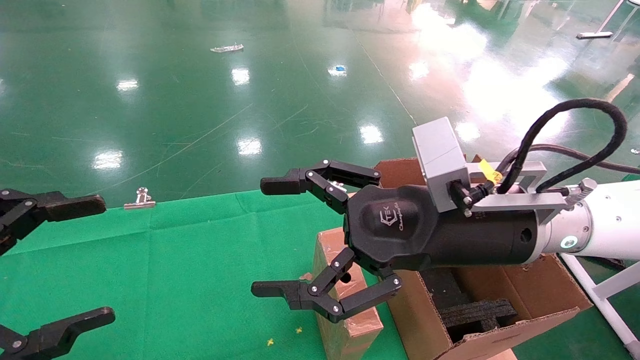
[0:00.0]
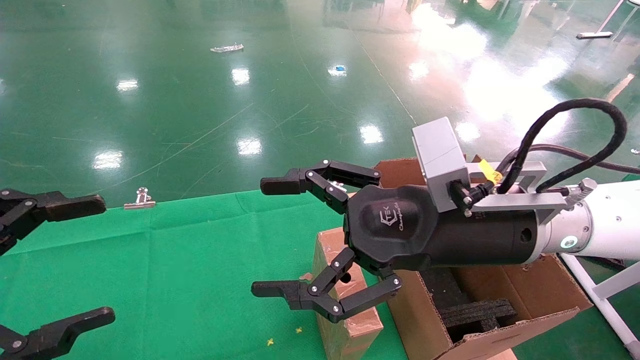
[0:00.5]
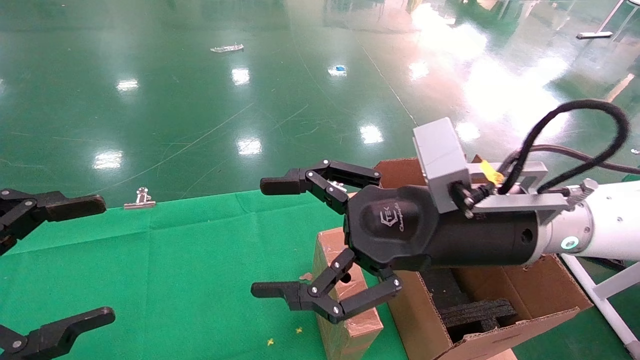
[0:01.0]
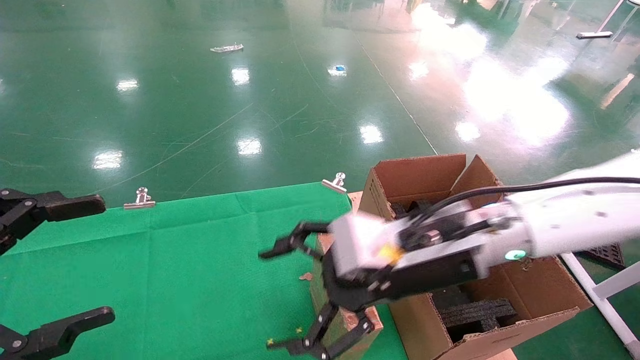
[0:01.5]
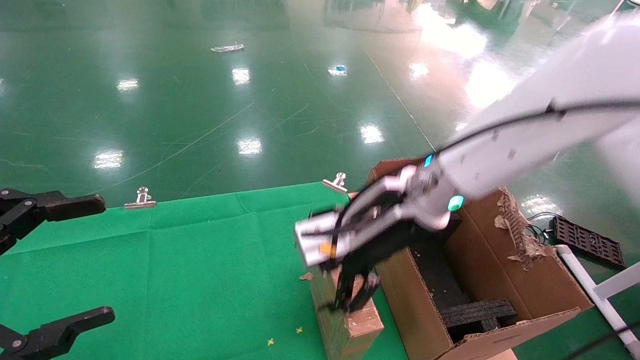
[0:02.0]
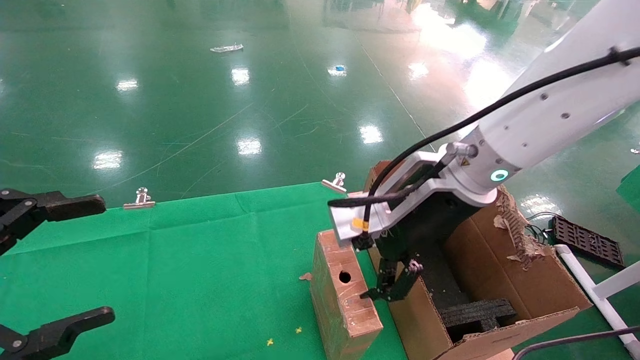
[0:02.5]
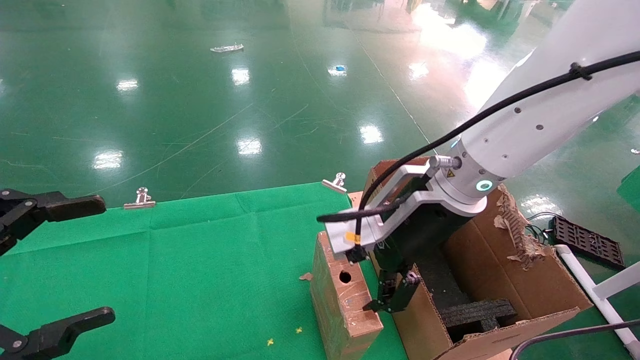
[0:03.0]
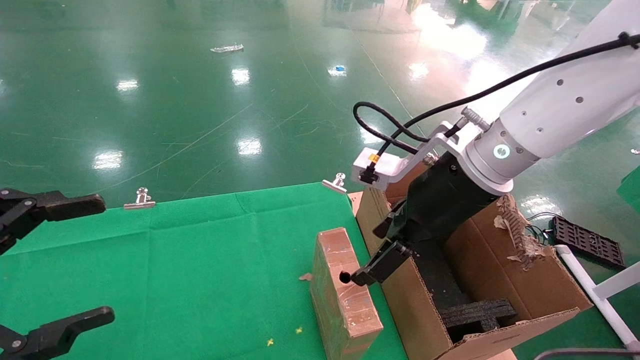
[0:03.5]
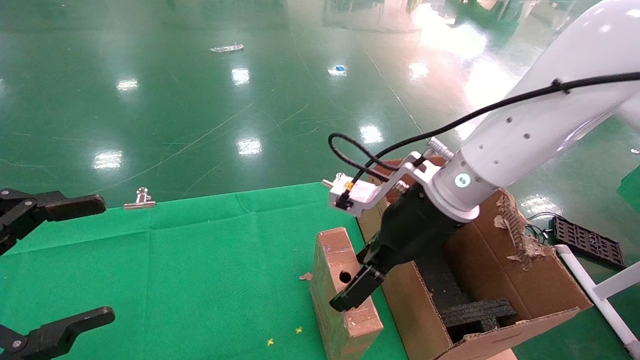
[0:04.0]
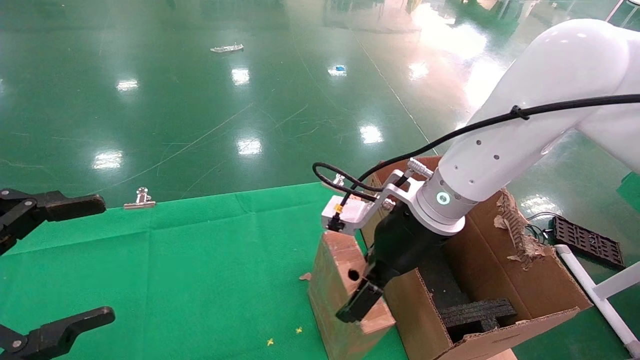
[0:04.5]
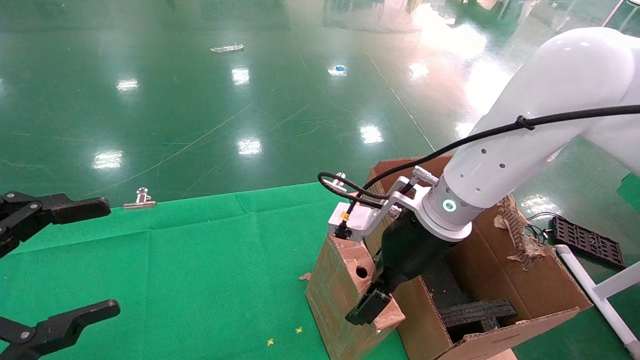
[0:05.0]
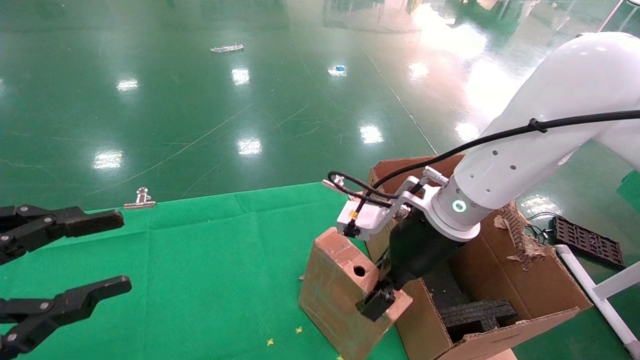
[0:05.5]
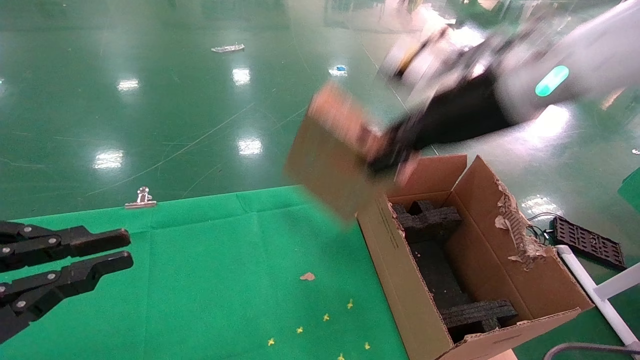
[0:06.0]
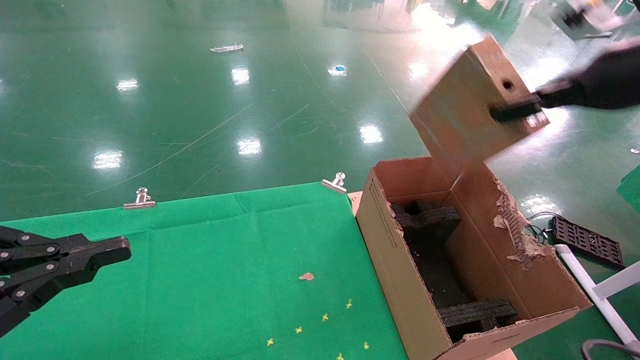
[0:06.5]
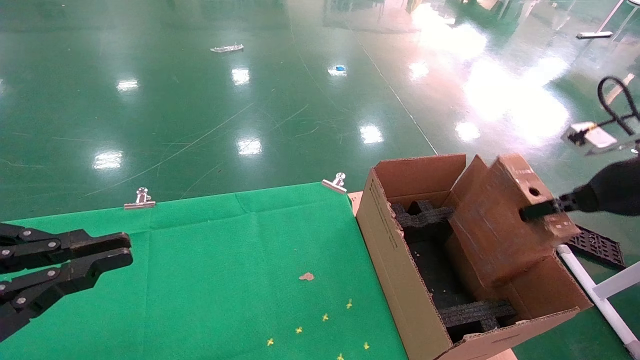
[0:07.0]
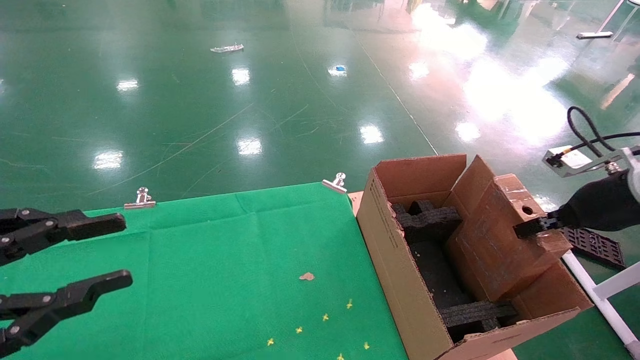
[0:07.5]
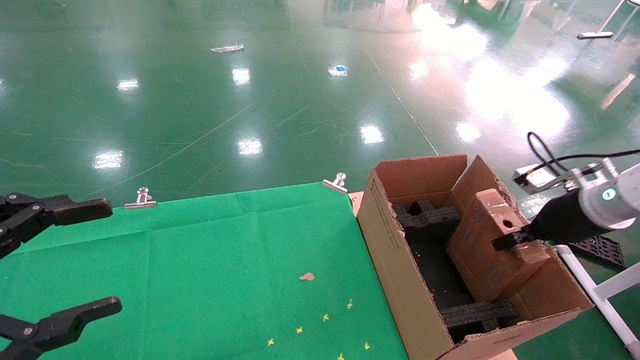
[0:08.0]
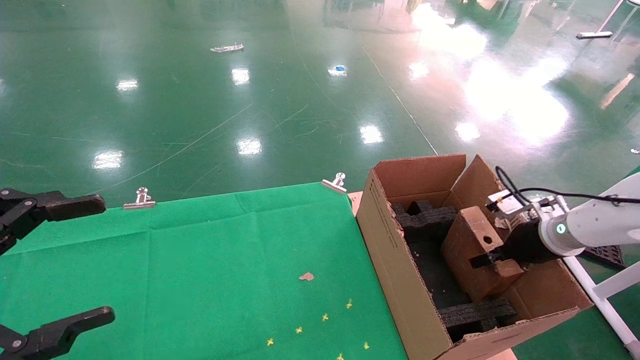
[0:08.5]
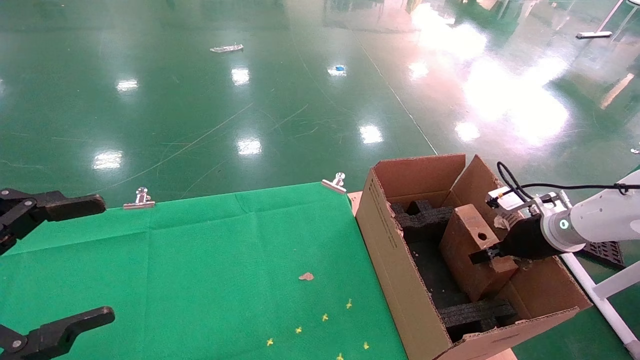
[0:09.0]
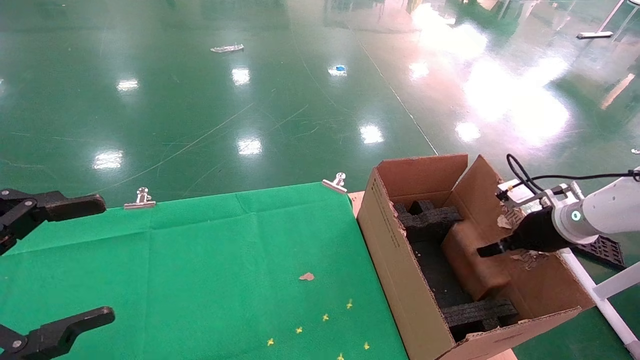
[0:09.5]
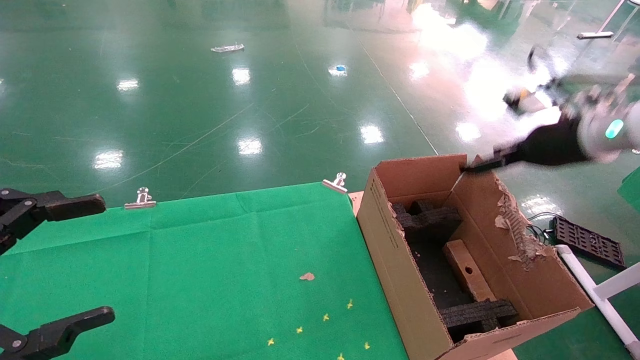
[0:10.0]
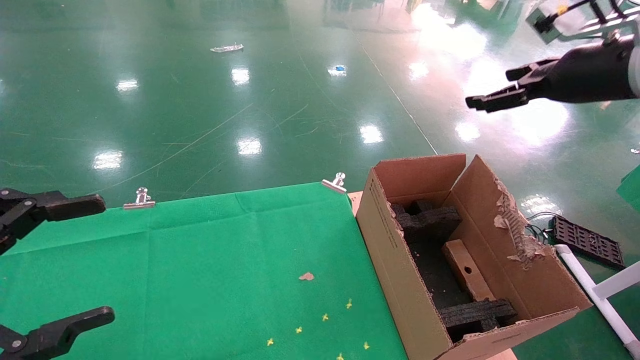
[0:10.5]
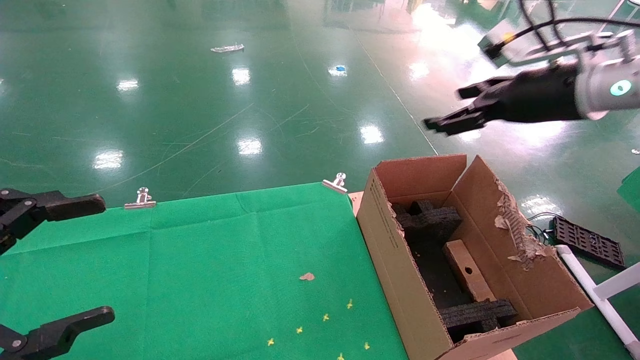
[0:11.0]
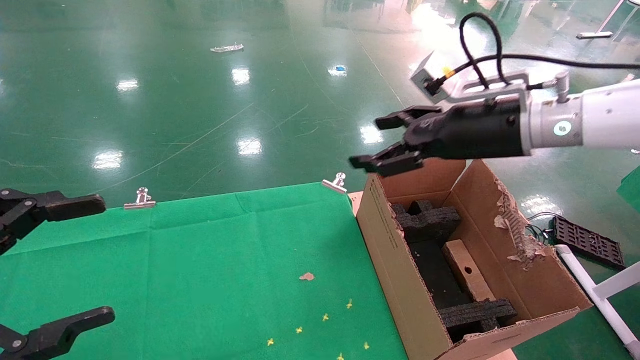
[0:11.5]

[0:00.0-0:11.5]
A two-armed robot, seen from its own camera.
Task of the whole recording: using a robotic arm to pick up a cardboard box and palace it the carton.
Step, 0:01.5 to 0:05.5: Pick up the mouse and the power cord paper box.
Step, 0:06.0 to 0:09.5: Place the mouse and the power cord paper box into the container.
0:00.0 to 0:02.0: The right gripper is displaced forward by about 5 cm.
0:04.0 to 0:06.0: The right gripper heads upward and to the right, covering roughly 15 cm, and closes its fingers. The left gripper closes.
0:06.0 to 0:07.5: The right gripper goes some 25 cm to the right and downward.
0:07.5 to 0:09.5: The left gripper opens up, while the right gripper goes roughly 10 cm downward and forward.
0:09.5 to 0:11.5: The right gripper travels to the left and upward by approximately 25 cm, and opens its fingers.

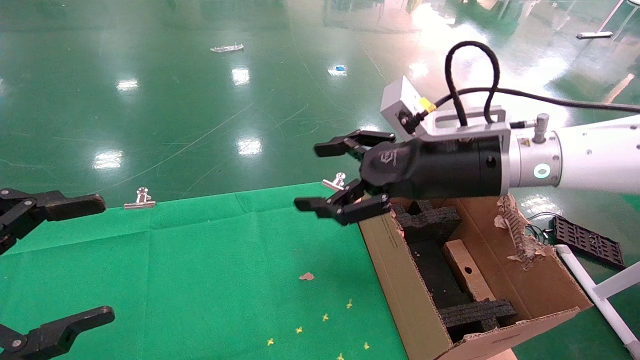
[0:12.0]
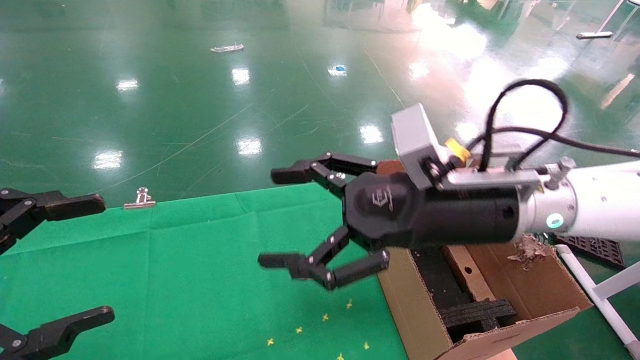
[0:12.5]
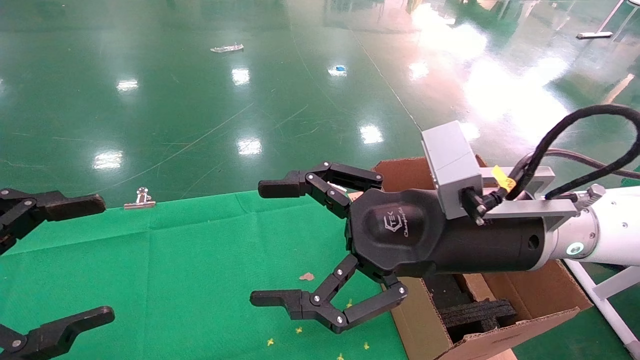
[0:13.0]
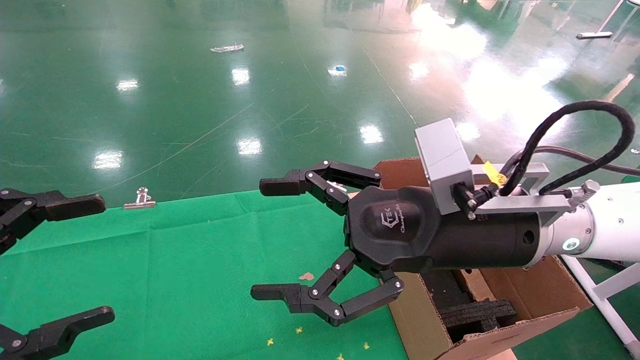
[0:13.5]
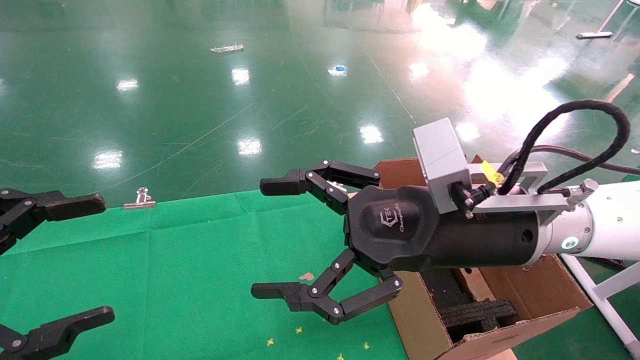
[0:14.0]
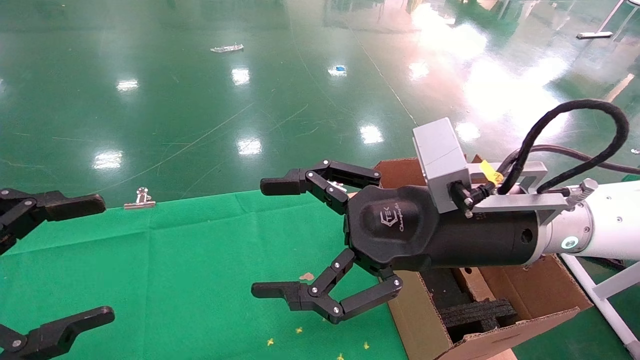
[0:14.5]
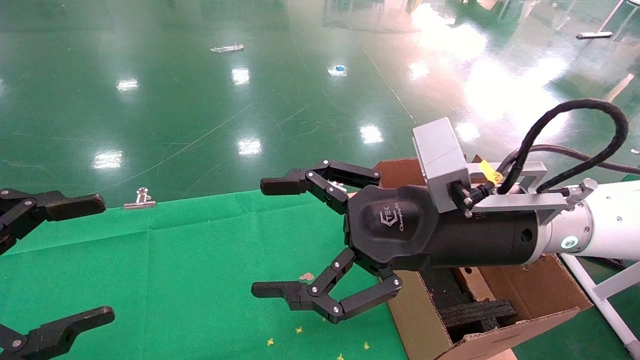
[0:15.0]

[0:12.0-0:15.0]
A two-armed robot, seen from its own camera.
Task of the whole recording: using a robotic arm to pick up a cardboard box and palace it the carton.
0:12.0 to 0:13.5: The right gripper is displaced backward by approximately 5 cm.
0:13.5 to 0:15.0: Neither gripper changes place.

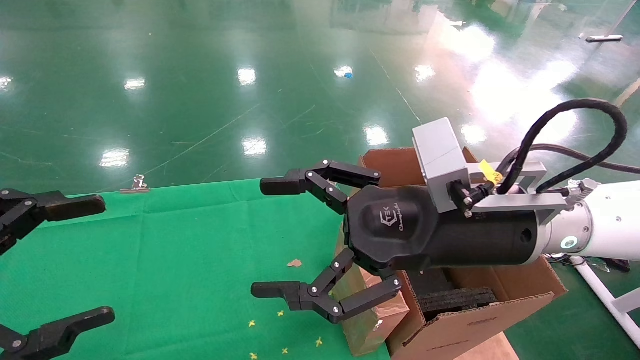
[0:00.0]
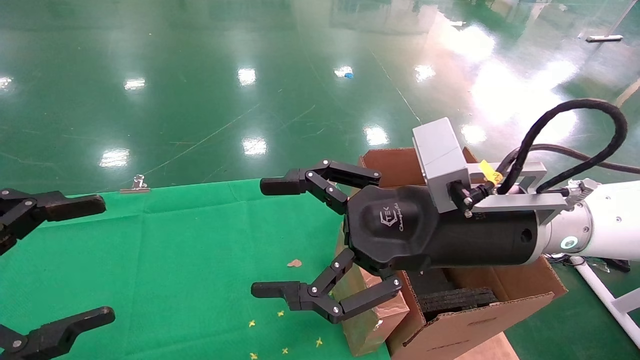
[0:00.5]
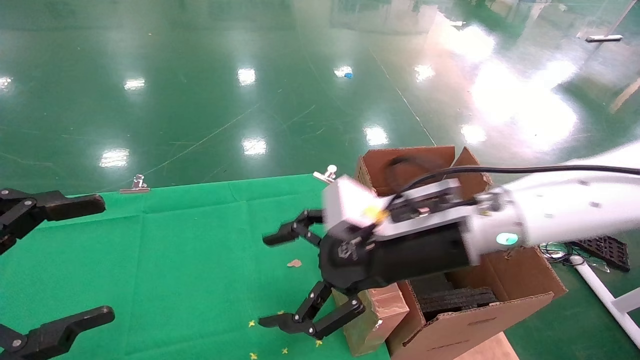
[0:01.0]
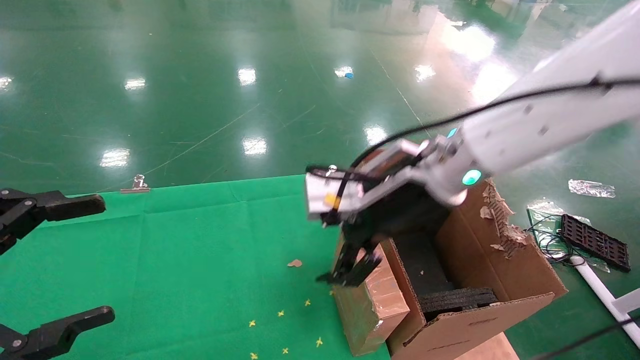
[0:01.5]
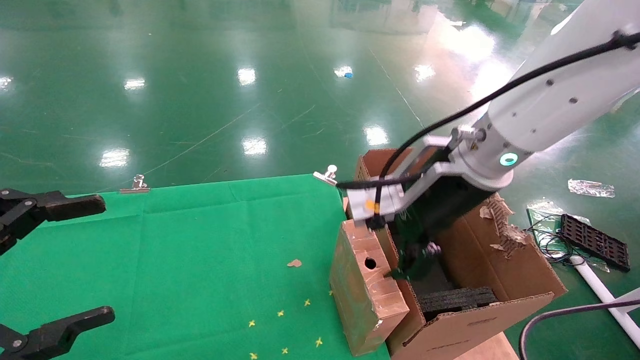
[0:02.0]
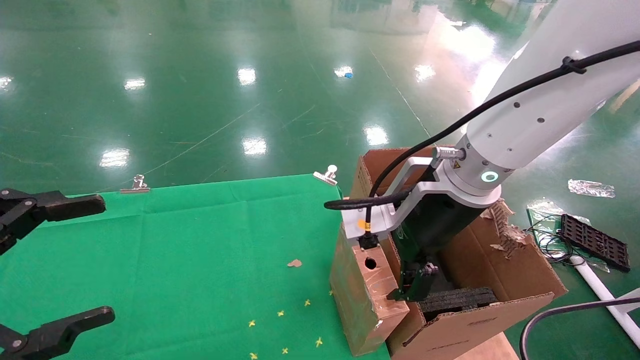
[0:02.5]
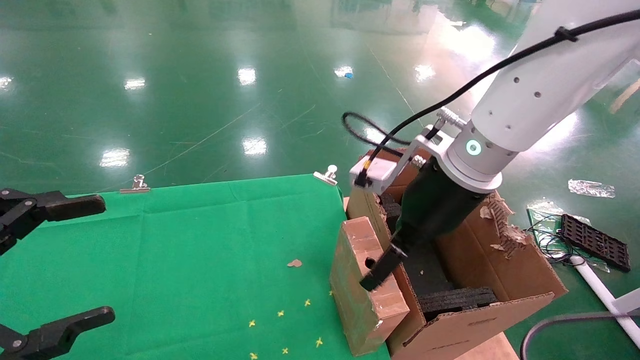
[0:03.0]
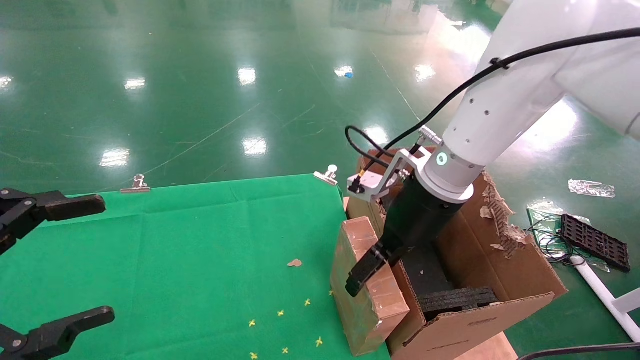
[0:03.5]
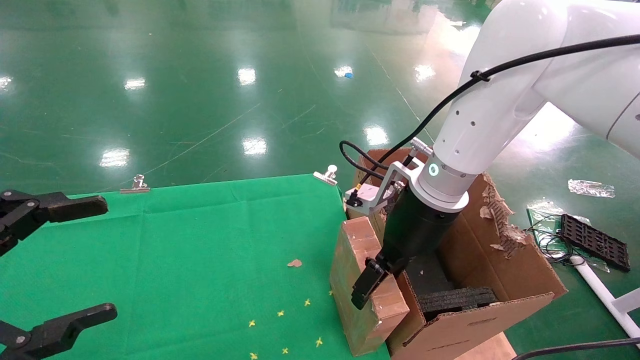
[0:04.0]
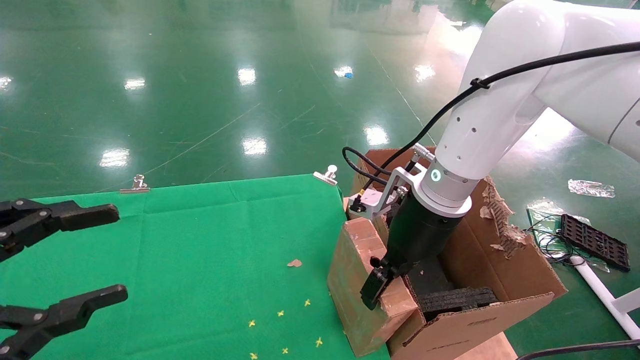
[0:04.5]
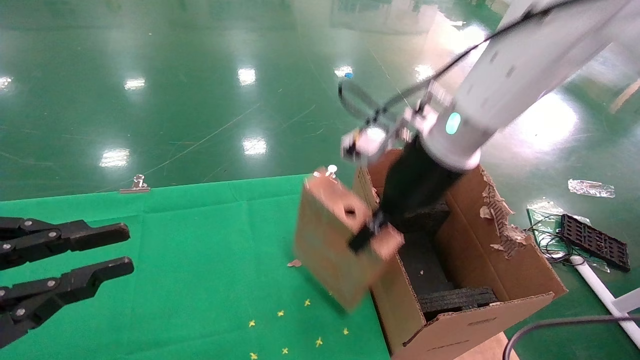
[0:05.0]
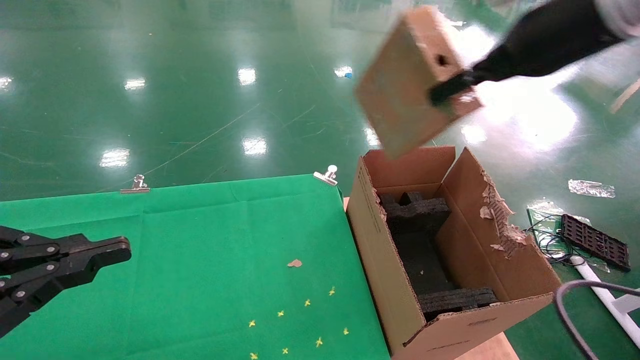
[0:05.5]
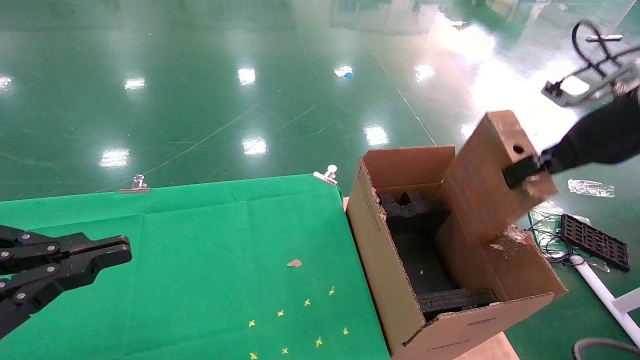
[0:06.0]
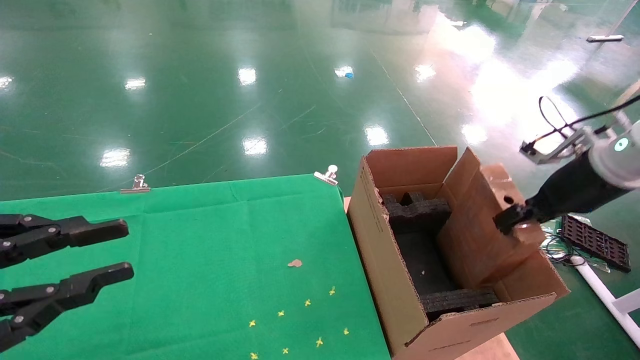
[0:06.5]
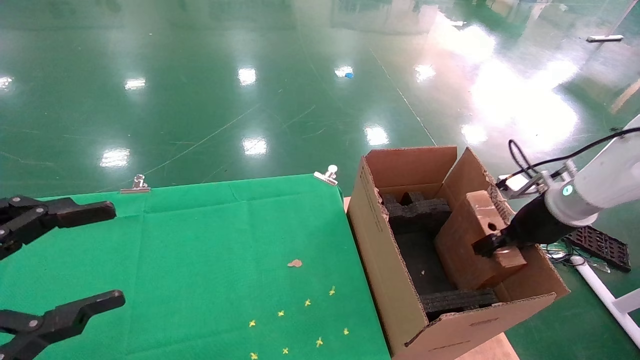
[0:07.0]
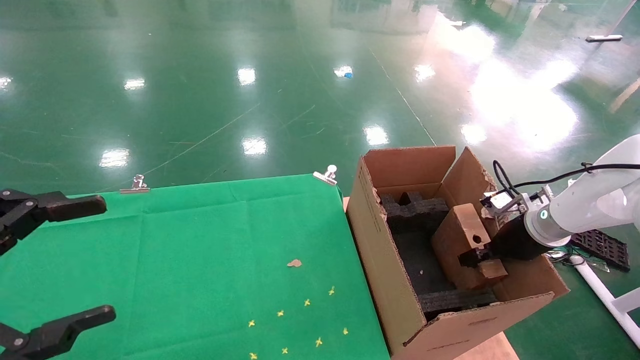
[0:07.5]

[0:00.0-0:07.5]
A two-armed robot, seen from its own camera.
Task of the whole recording: using a robotic arm to pick up a cardboard box and palace it the carton.
Step, 0:01.0 to 0:04.5: Pick up the mouse and the power cord paper box.
0:00.0 to 0:02.0: The right gripper goes some 5 cm forward.
0:02.0 to 0:04.0: The right gripper heads forward, covering approximately 5 cm.
0:04.0 to 0:05.5: The right gripper travels upward and to the right by roughly 20 cm, and closes its fingers, while the left gripper closes its fingers.
0:05.5 to 0:07.5: The left gripper opens; the right gripper travels downward and to the right by about 30 cm.
